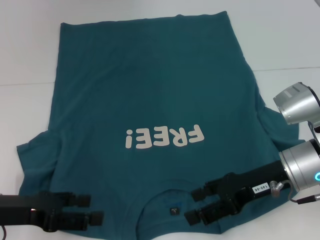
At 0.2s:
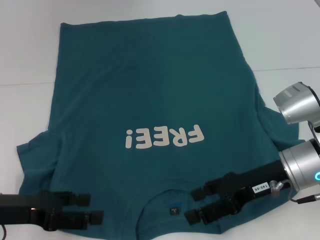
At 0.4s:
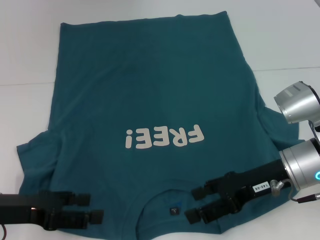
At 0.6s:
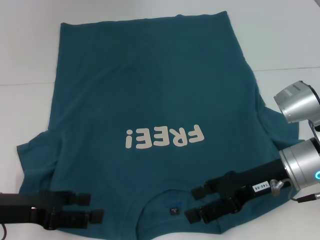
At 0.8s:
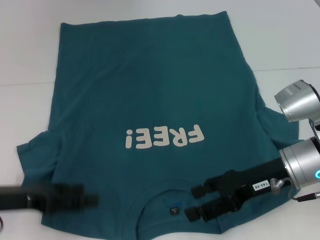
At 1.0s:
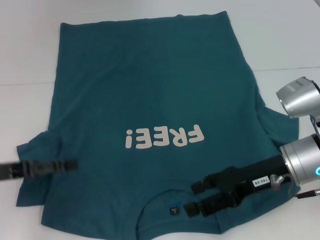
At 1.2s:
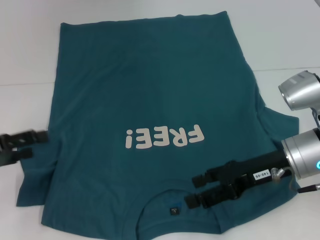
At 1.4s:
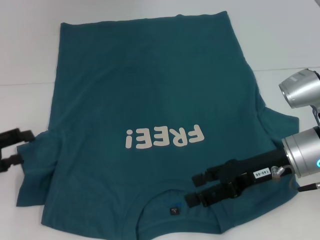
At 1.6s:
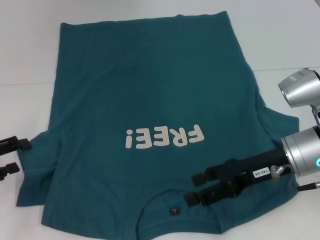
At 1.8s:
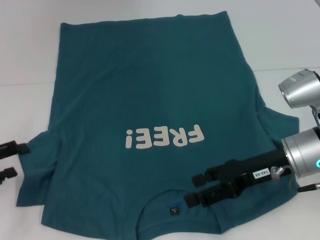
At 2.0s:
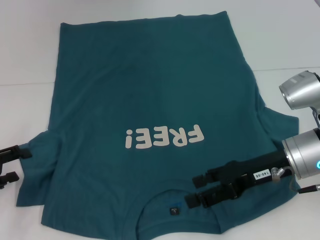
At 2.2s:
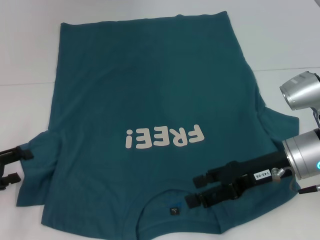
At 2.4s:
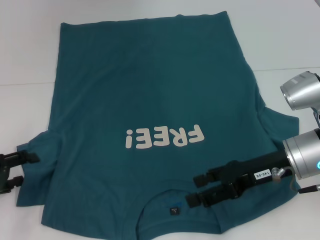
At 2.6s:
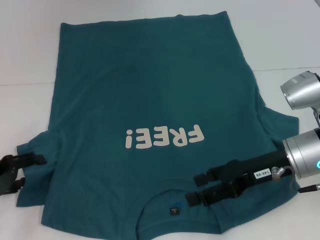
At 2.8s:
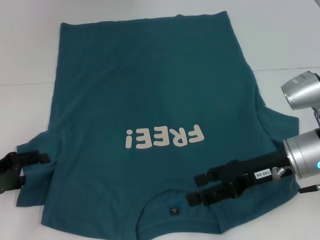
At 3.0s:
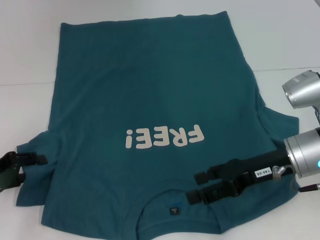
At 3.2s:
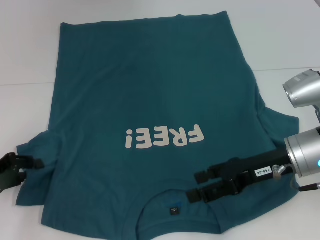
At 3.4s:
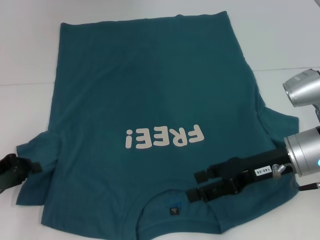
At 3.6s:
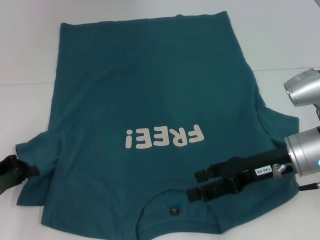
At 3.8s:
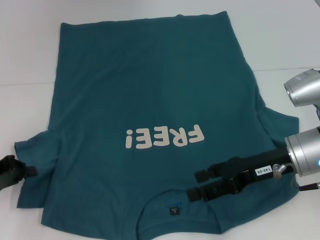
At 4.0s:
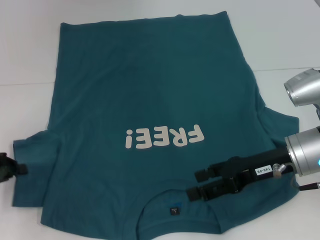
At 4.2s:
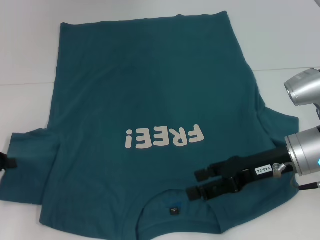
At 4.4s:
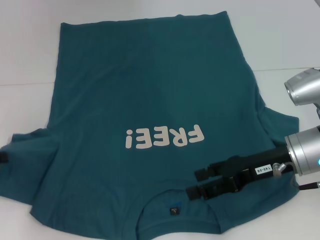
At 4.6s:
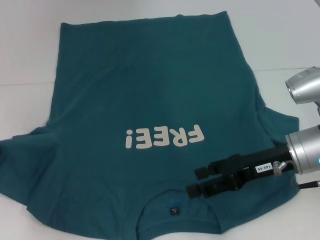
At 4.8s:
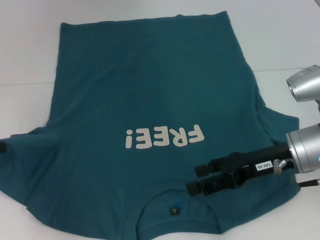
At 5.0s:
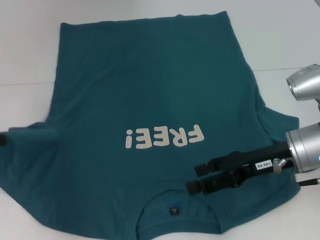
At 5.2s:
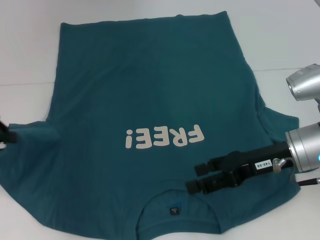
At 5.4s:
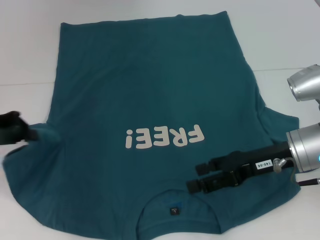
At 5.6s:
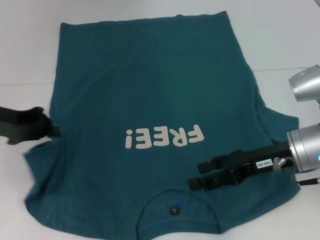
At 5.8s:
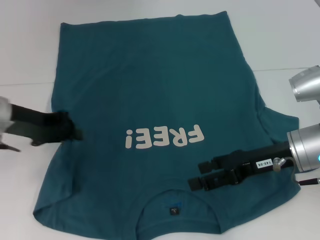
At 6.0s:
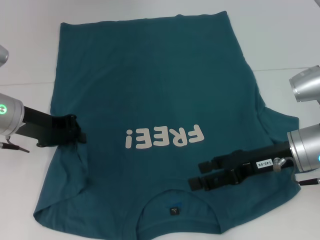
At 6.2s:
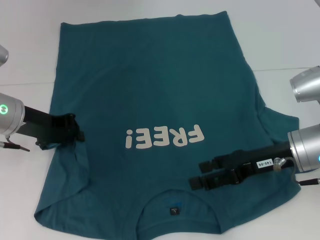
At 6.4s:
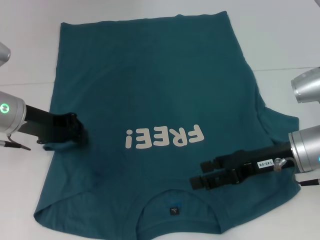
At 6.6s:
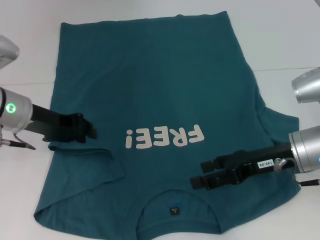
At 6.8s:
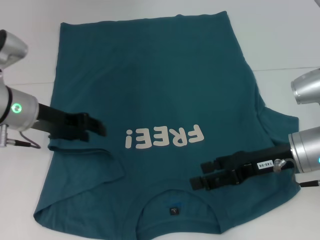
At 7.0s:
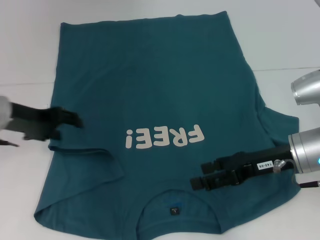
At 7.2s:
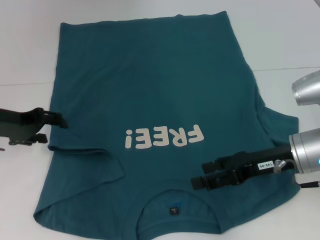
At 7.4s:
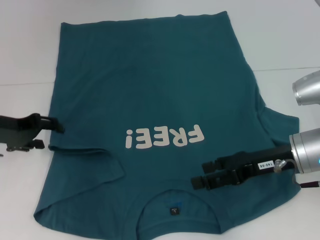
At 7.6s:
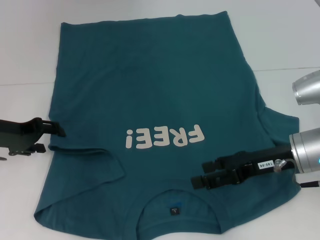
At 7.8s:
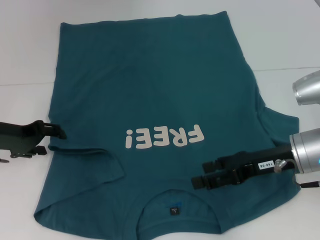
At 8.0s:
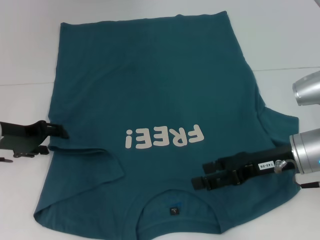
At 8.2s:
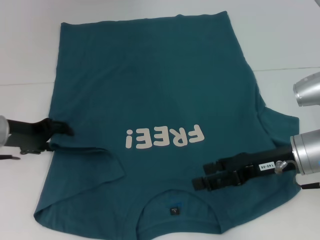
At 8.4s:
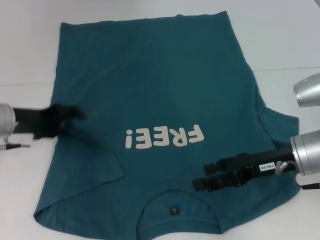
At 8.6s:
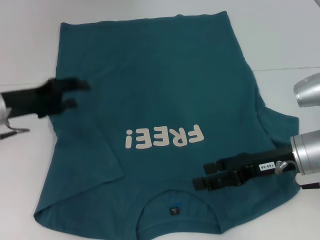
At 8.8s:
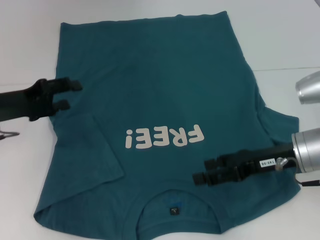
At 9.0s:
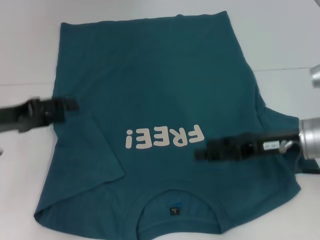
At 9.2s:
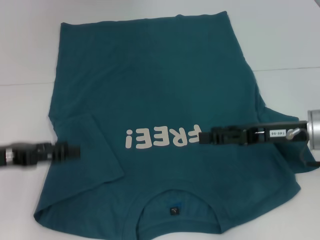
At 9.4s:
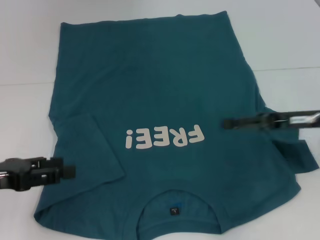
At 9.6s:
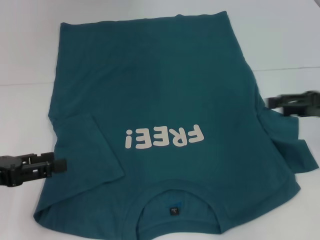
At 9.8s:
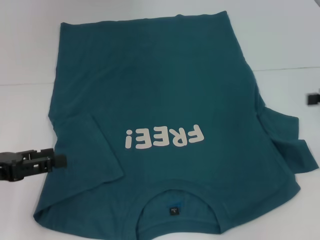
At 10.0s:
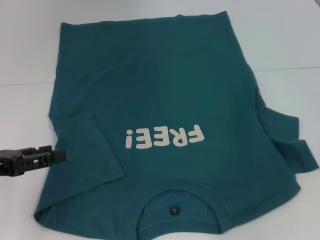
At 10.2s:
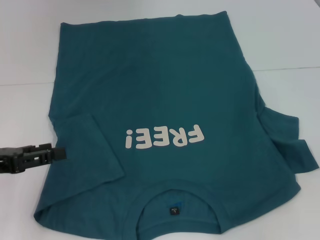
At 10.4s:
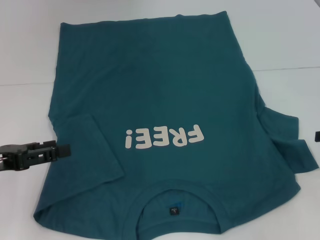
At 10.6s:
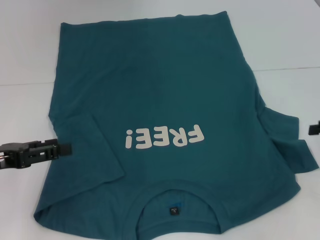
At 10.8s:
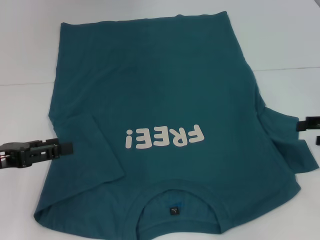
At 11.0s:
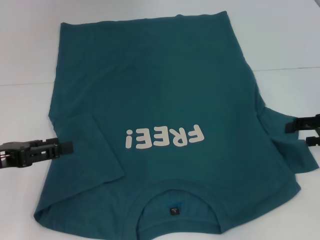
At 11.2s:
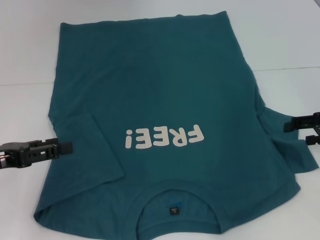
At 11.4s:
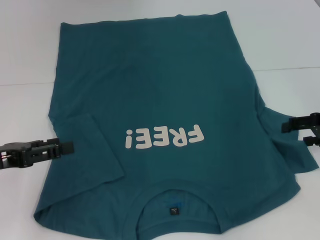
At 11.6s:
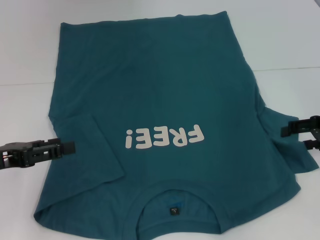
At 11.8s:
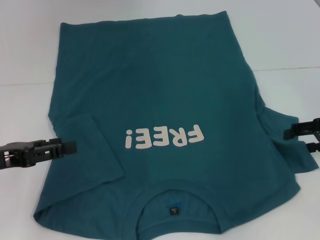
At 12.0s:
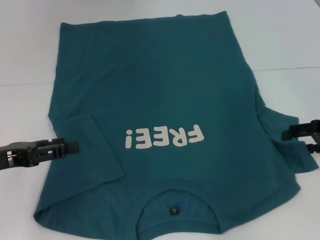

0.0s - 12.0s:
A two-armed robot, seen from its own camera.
Step, 0.0s - 9.0s: Fold the bottom left sleeve with your left hand.
0.0s - 1.6s: The left gripper moves to the left, about 10 cm.
1.6s - 3.0s: The grippers move only a little.
3.0s - 4.4s: The left gripper changes place by about 5 cm, and closes up.
4.4s - 6.0s: The left gripper travels to the right and forward by some 15 cm.
6.0s - 7.6s: The left gripper shifts roughly 5 cm to the left, and opens its fingers.
9.0s - 10.4s: The right gripper goes some 15 cm to the right. Meanwhile the left gripper heads backward, covering some 5 cm.
10.4s - 12.0s: The right gripper shifts by about 5 cm.

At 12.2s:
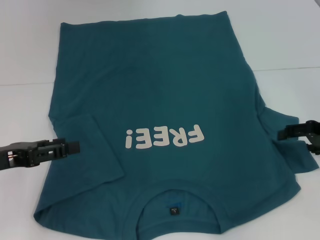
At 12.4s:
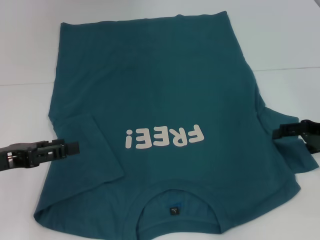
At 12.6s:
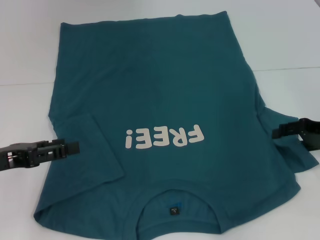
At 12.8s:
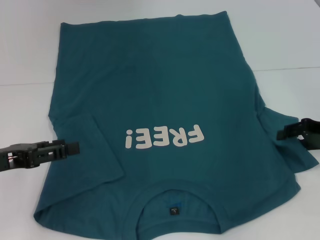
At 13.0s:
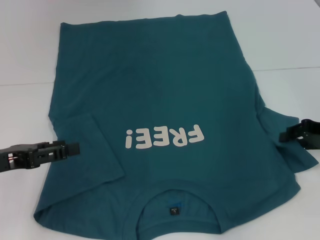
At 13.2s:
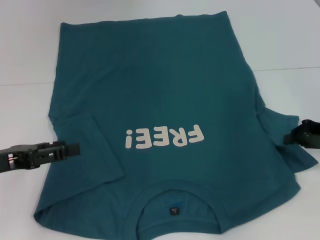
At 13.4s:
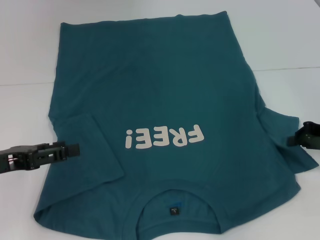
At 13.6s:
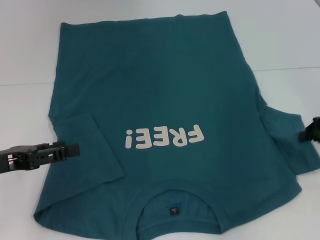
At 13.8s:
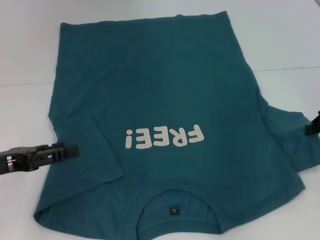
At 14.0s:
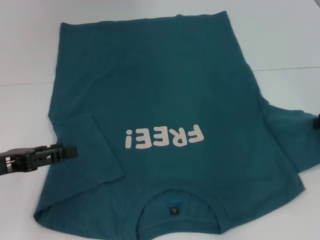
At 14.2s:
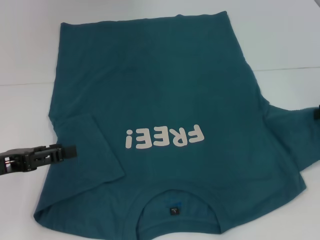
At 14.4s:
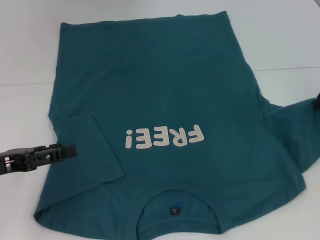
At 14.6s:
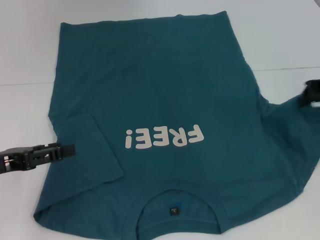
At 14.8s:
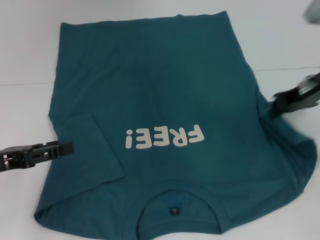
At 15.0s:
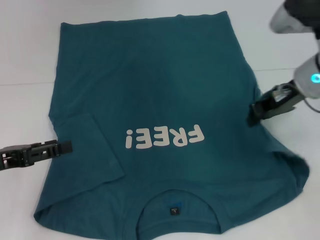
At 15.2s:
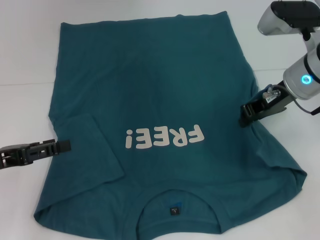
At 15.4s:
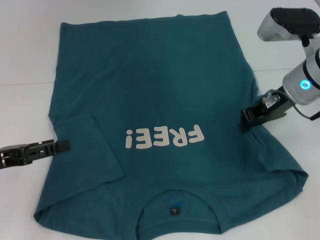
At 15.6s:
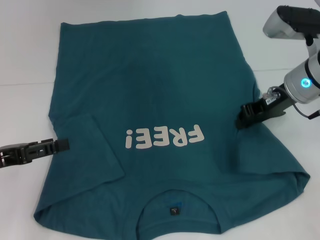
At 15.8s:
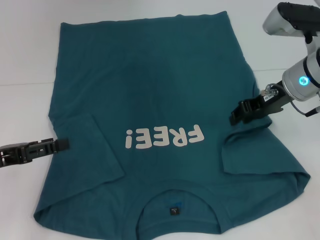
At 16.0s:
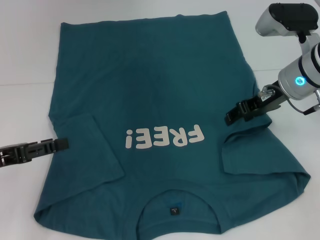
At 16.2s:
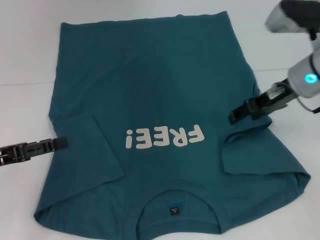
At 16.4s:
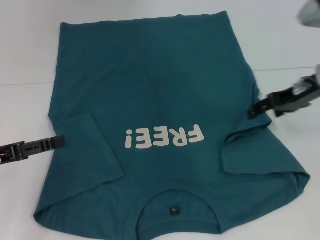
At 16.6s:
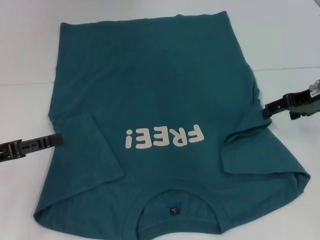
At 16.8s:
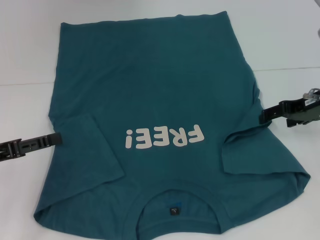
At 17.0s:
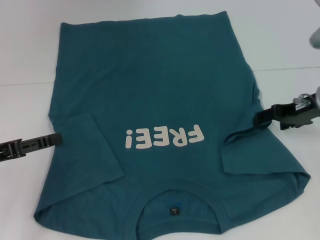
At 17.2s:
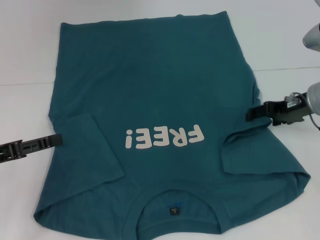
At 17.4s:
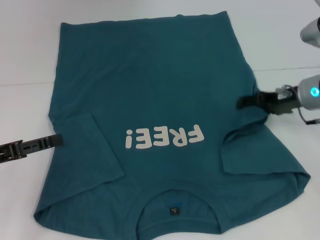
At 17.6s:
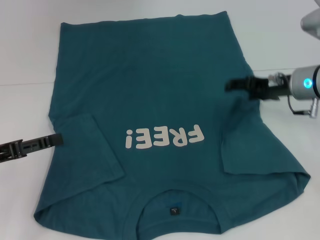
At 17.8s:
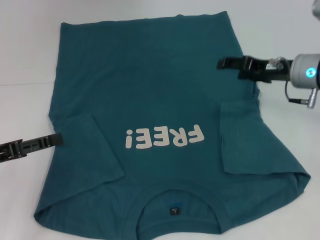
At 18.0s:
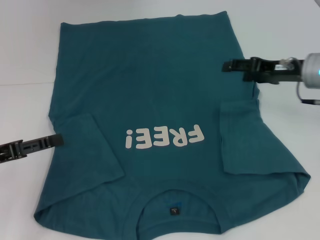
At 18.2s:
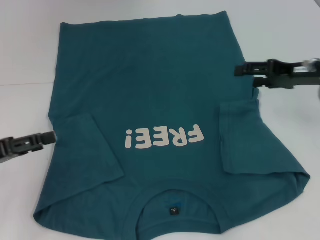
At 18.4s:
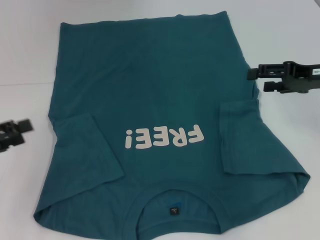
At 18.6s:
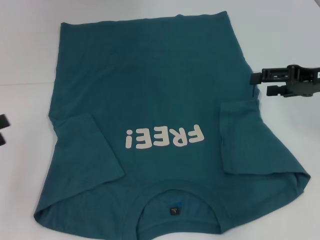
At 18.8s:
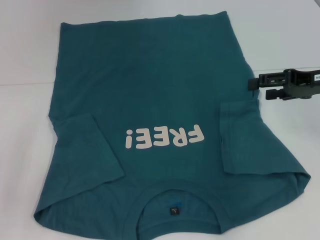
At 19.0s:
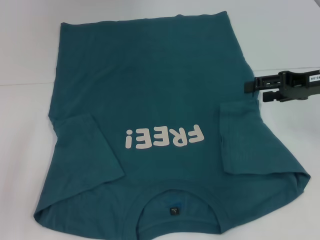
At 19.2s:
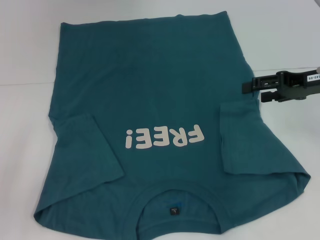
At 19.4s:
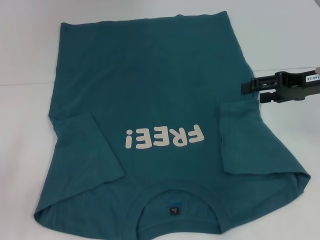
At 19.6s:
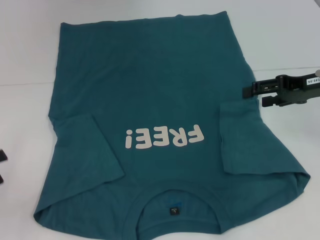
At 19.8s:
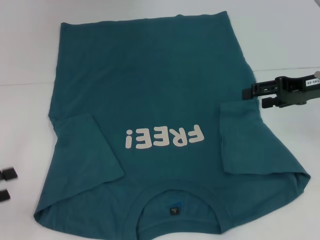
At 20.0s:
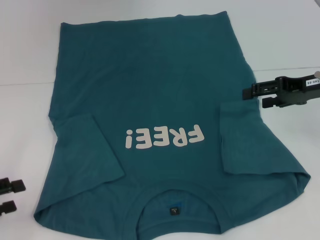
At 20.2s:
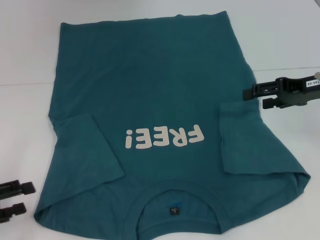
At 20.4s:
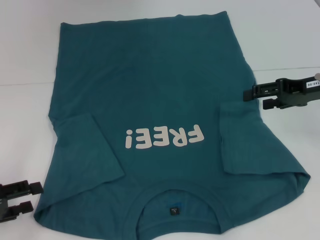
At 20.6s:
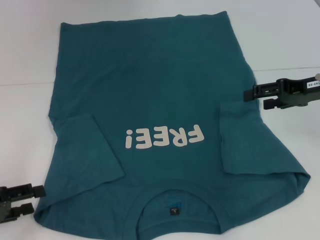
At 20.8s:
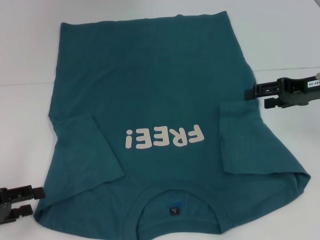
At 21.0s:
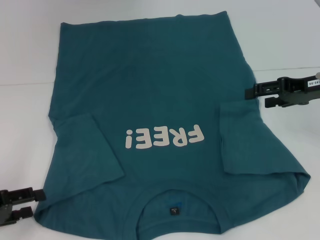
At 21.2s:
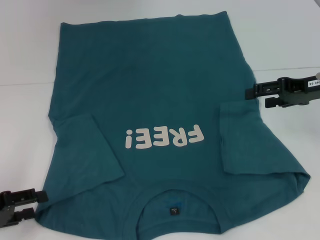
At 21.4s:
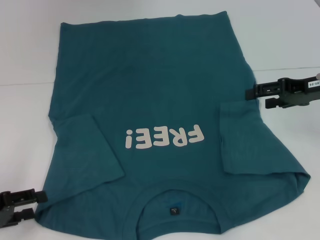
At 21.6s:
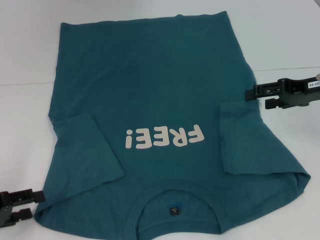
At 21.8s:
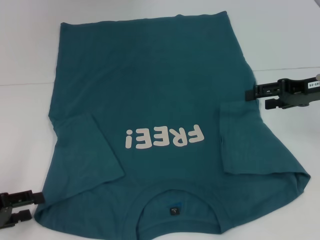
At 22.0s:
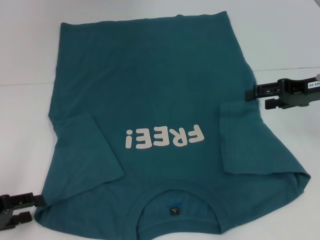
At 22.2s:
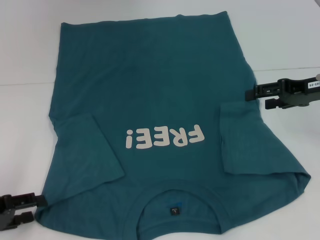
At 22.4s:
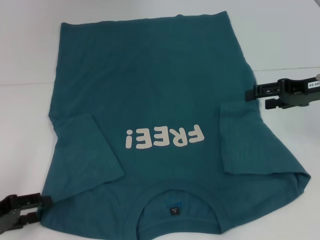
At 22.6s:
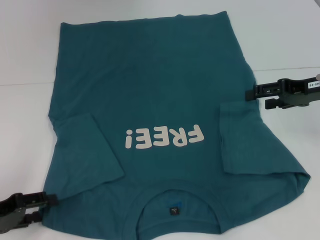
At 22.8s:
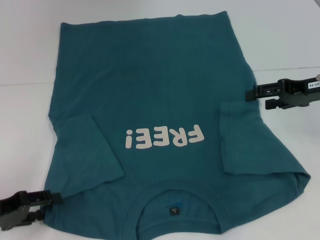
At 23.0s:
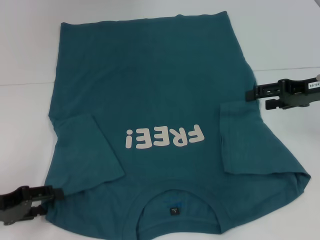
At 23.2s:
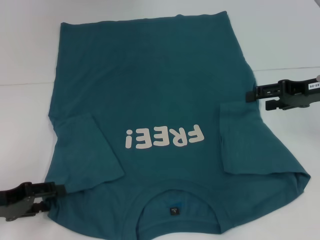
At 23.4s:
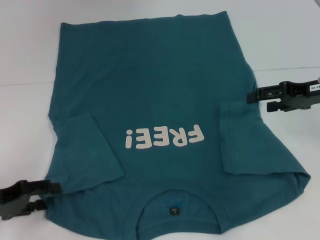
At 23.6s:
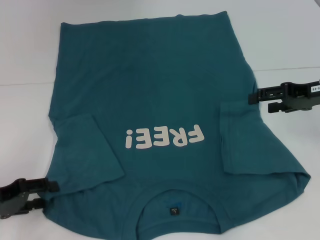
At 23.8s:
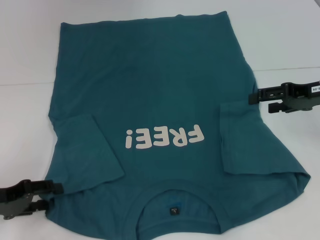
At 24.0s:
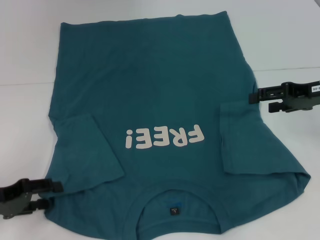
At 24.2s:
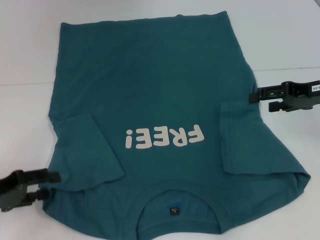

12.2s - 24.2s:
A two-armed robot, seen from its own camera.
Step, 12.2s - 17.6s: Fold the bottom right sleeve to the right.
12.2s - 13.8s: The right gripper closes.
13.8s - 15.2s: The right gripper moves to the left, some 15 cm.
15.2s - 16.6s: The right gripper heads to the right, covering roughly 10 cm, and opens up.
18.2s - 19.8s: The left gripper changes place by roughly 5 cm.
19.8s - 21.2s: The left gripper ends up some 5 cm from where it was.
21.2s - 24.2s: The grippers make only small movements.
